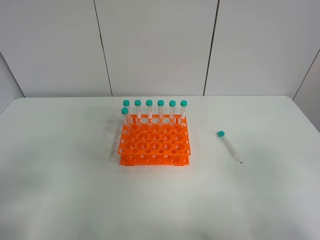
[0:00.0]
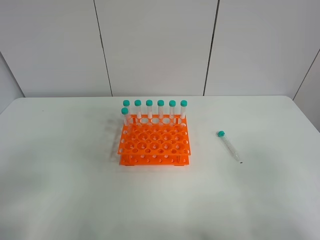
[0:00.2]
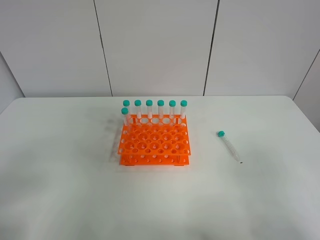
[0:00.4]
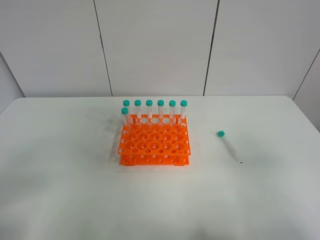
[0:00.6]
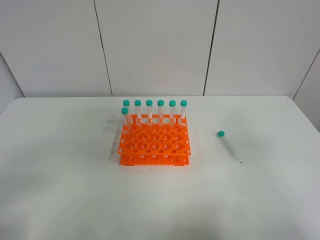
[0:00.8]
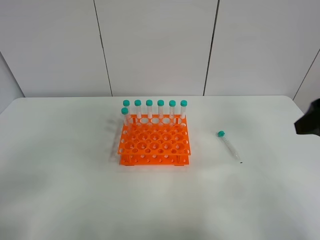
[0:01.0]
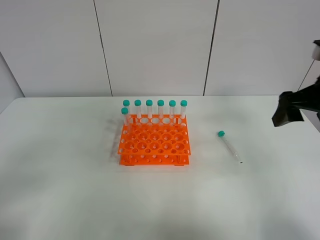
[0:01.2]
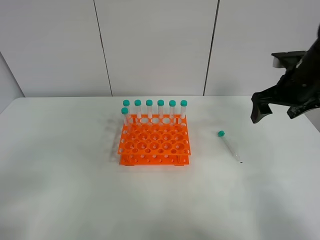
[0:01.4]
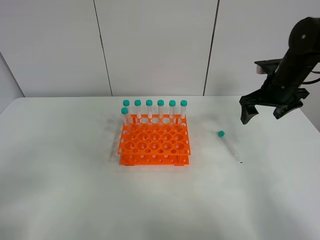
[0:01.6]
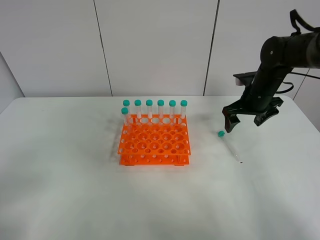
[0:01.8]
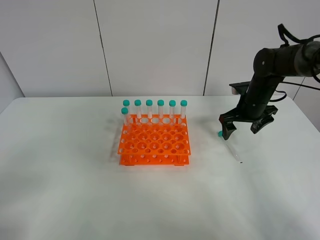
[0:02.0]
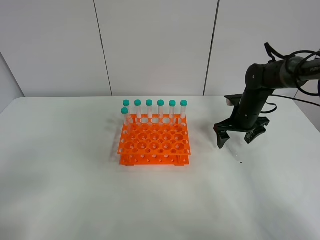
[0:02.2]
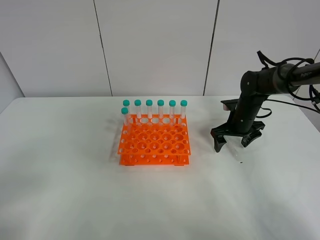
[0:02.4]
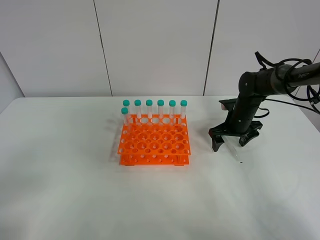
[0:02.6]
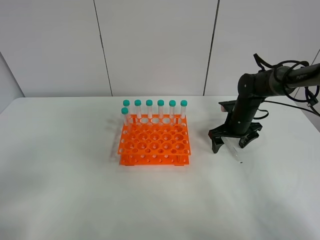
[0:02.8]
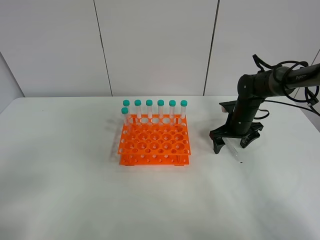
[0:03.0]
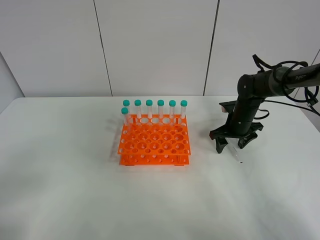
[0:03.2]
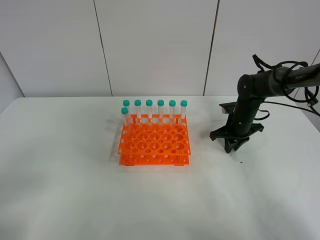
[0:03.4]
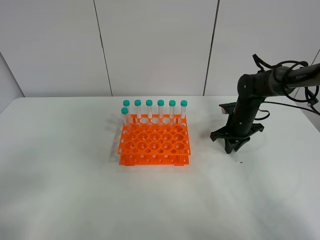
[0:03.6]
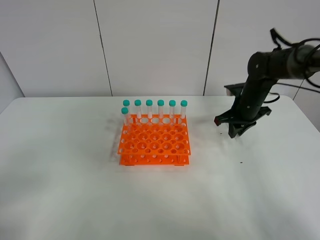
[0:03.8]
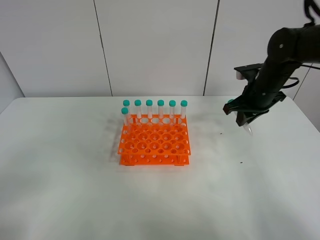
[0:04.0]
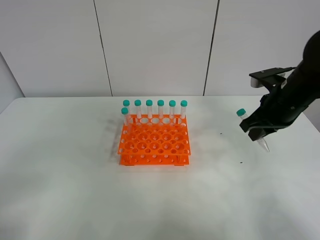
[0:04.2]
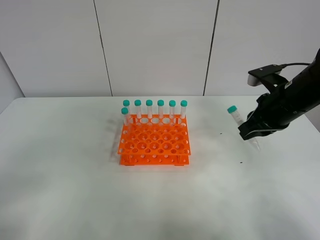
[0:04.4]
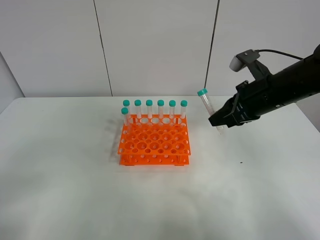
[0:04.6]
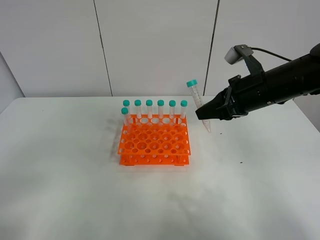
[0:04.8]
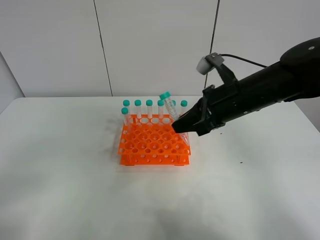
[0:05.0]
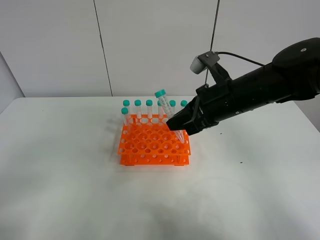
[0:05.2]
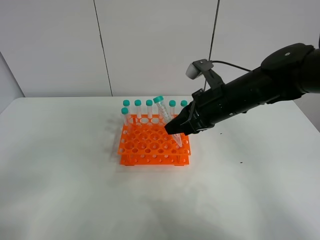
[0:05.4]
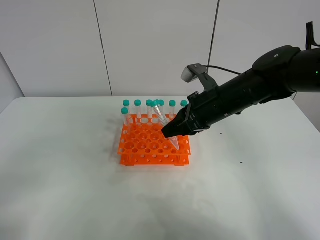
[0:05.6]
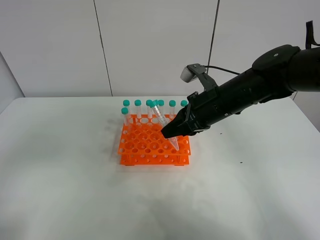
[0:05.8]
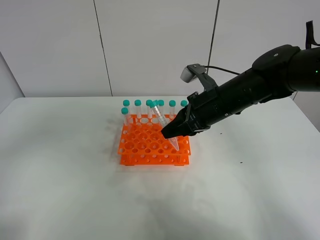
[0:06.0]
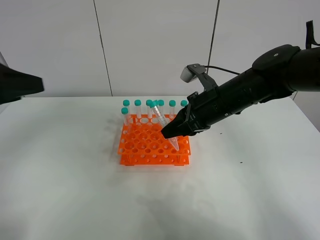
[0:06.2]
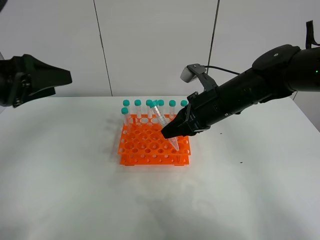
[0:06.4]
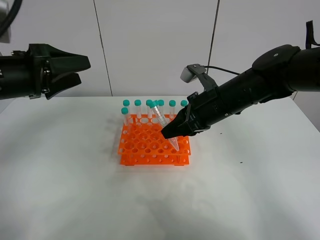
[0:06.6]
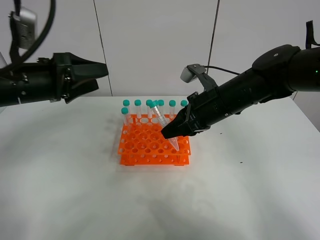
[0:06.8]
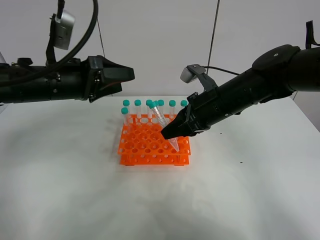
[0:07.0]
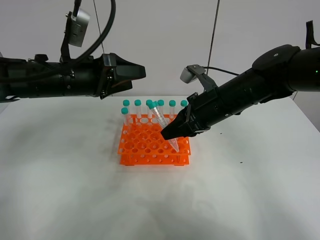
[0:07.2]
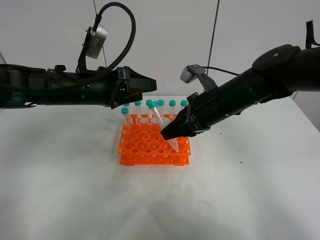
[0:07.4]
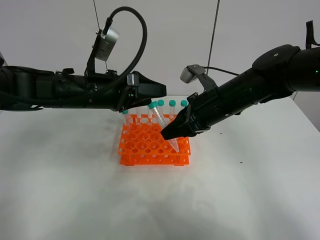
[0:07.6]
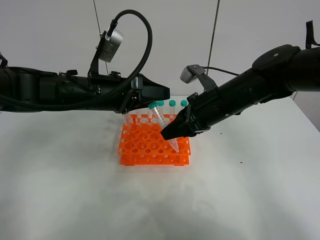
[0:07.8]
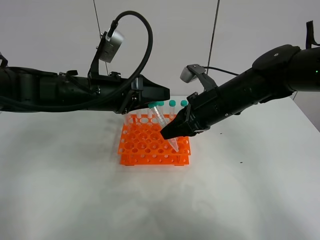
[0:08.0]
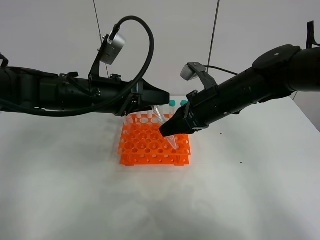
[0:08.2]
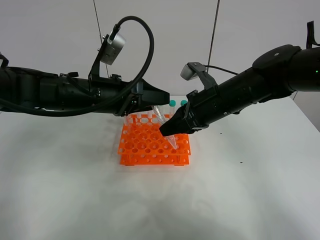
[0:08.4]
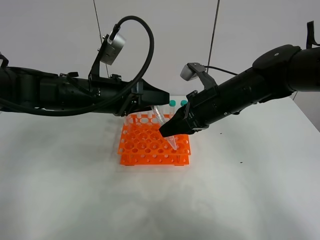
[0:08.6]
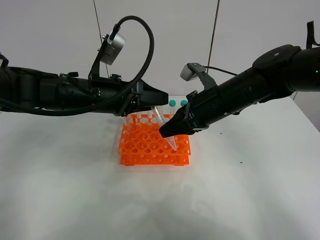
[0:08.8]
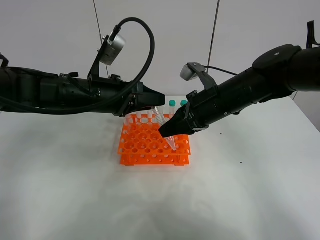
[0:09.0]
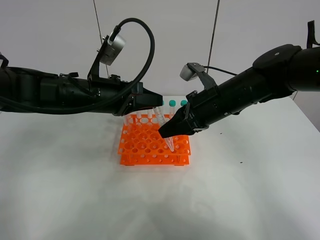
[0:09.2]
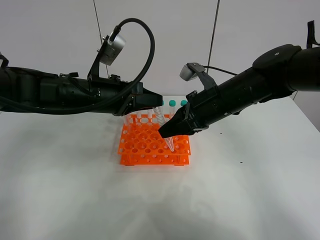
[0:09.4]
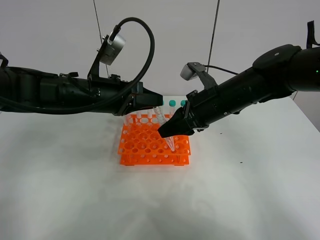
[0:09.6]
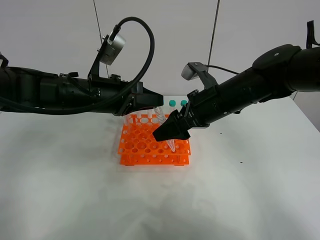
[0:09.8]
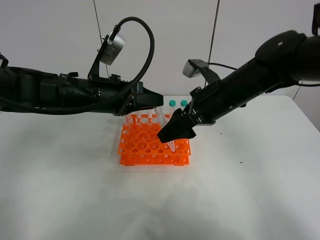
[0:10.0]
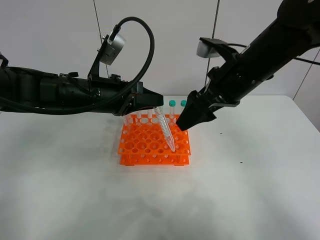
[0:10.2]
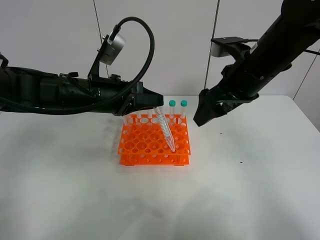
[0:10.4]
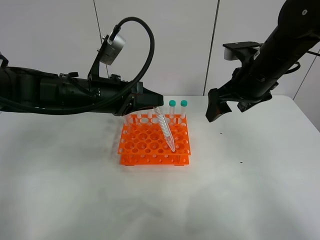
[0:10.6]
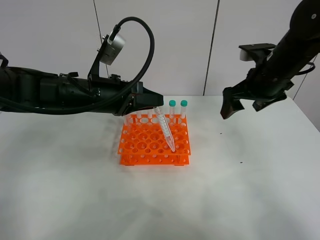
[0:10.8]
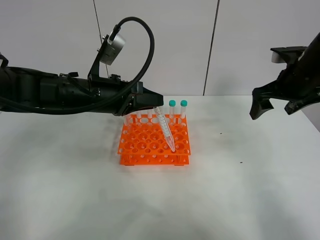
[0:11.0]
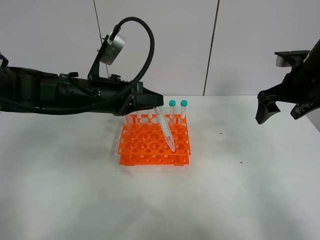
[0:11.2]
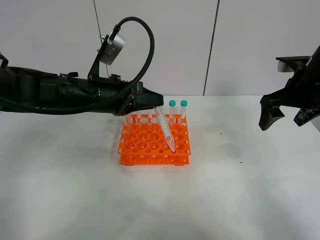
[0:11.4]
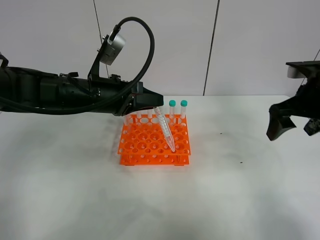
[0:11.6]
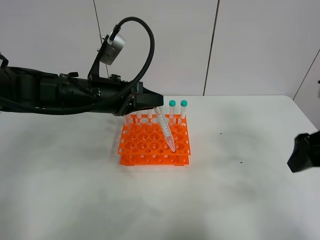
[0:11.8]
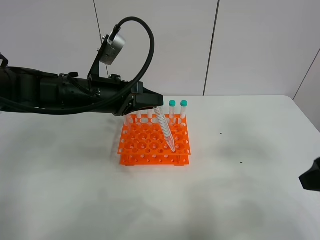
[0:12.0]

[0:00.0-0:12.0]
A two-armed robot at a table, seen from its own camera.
Task of the whole recording: Put the test tube on the table back onto the test tube rack.
Step, 0:00.0 to 0:03.6: Pick up the test tube with the right gripper.
Step, 0:03.8 to 0:09.6: Move the test tube from the right gripper to the left gripper.
0:00.0 to 0:01.6: The right gripper shifts roughly 35 cm forward.
0:01.6 to 0:03.0: The right gripper is displaced downward by about 15 cm.
0:03.0 to 0:04.4: The right gripper is displaced upward and backward by roughly 20 cm, and closes its fingers.
0:04.4 to 0:06.0: The left gripper shifts approximately 10 cm forward and upward; the right gripper heads to the left, covering some 10 cm.
0:06.0 to 0:07.6: The left gripper heads forward, to the right and downward, covering roughly 30 cm.
0:07.6 to 0:09.0: The left gripper closes its fingers.
0:09.0 to 0:10.4: The right gripper shifts approximately 5 cm upward, and opens up.
0:10.4 to 0:12.0: The right gripper is displaced backward and to the right by approximately 20 cm.

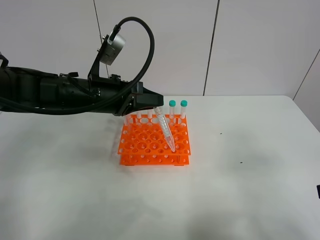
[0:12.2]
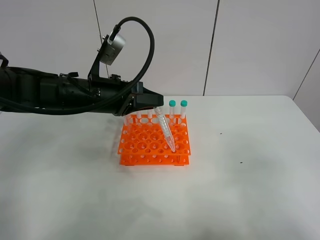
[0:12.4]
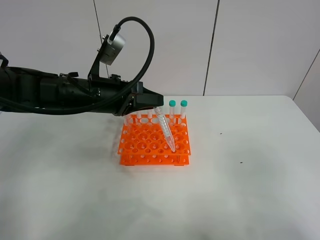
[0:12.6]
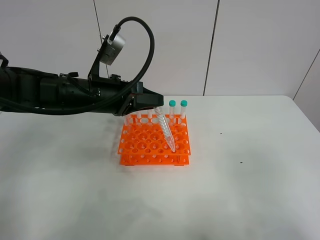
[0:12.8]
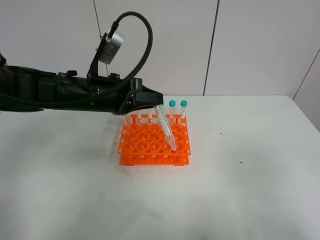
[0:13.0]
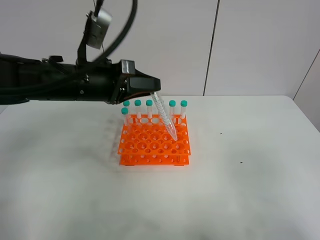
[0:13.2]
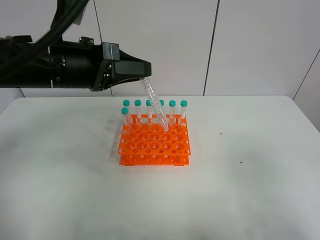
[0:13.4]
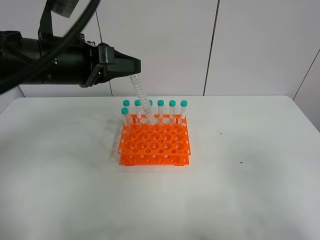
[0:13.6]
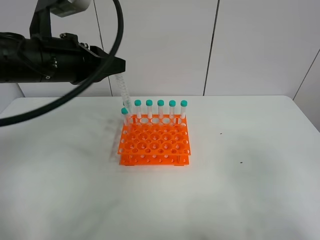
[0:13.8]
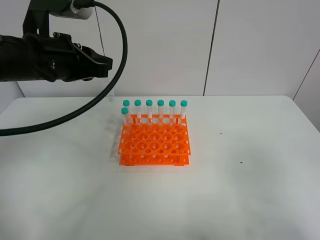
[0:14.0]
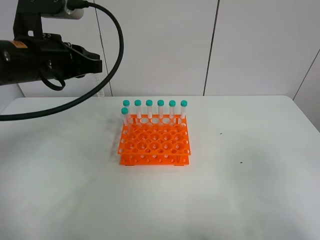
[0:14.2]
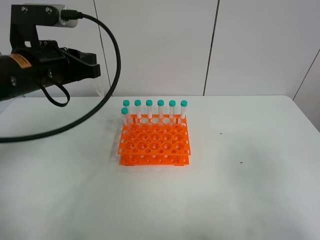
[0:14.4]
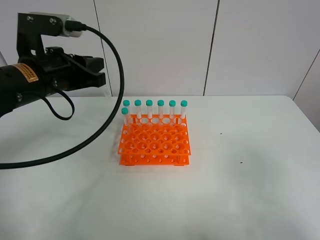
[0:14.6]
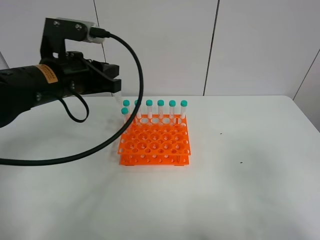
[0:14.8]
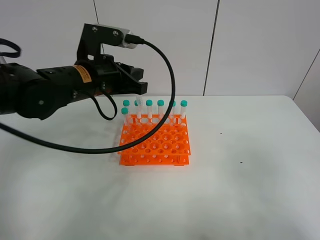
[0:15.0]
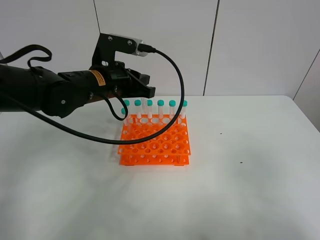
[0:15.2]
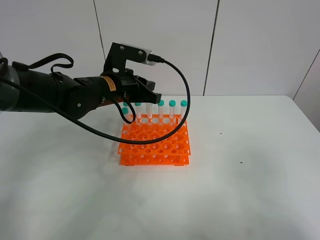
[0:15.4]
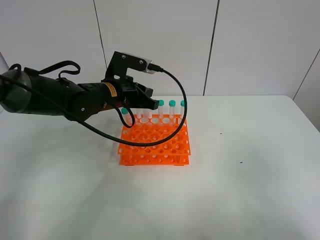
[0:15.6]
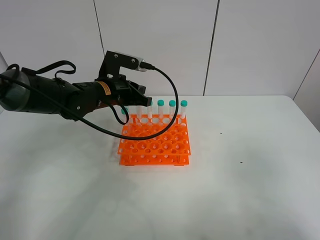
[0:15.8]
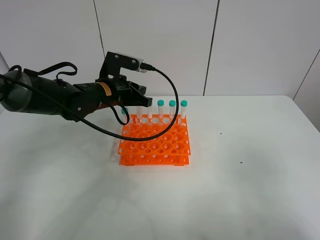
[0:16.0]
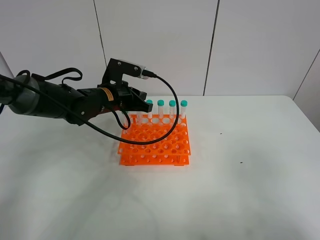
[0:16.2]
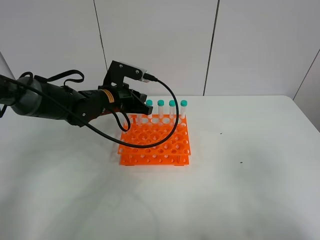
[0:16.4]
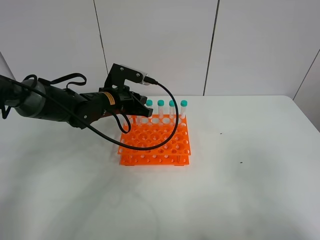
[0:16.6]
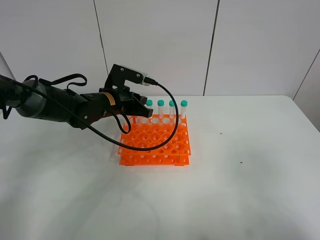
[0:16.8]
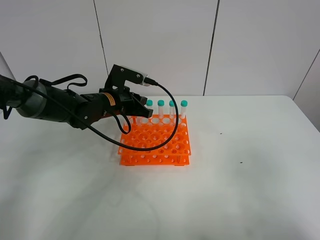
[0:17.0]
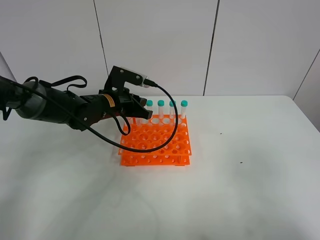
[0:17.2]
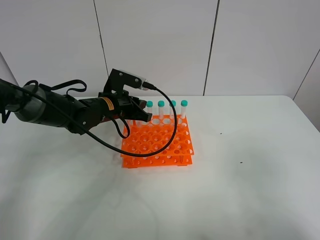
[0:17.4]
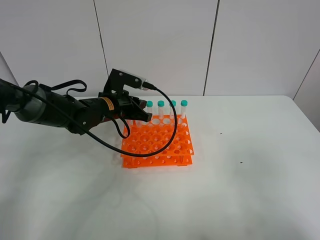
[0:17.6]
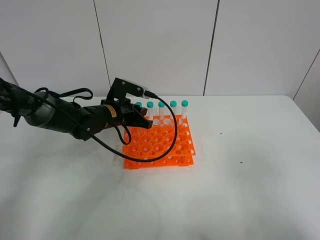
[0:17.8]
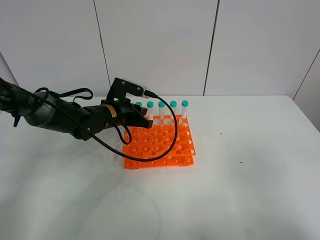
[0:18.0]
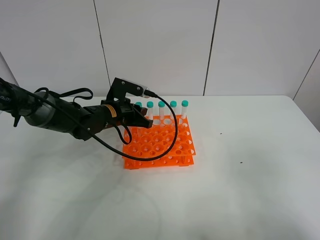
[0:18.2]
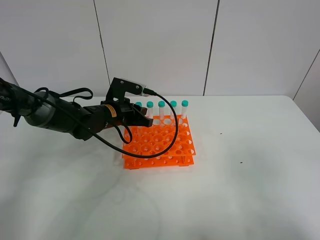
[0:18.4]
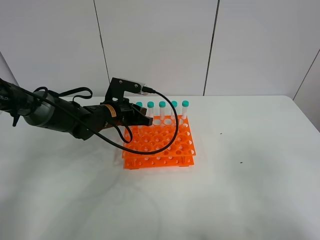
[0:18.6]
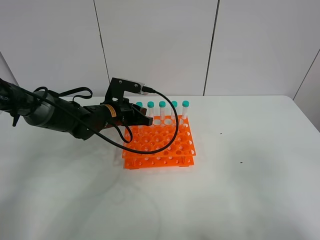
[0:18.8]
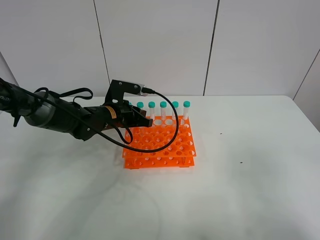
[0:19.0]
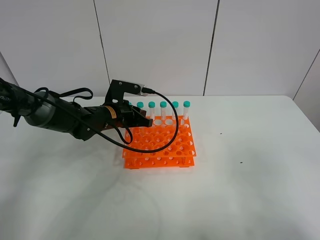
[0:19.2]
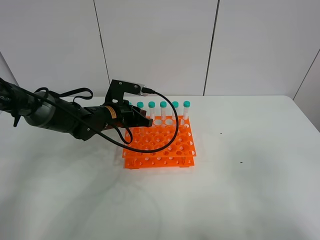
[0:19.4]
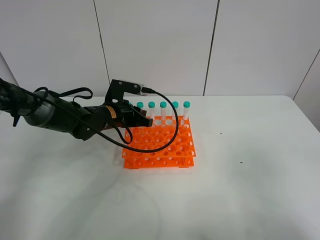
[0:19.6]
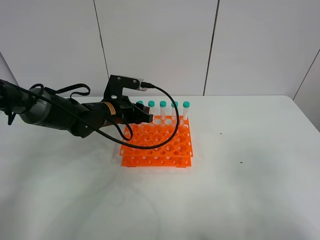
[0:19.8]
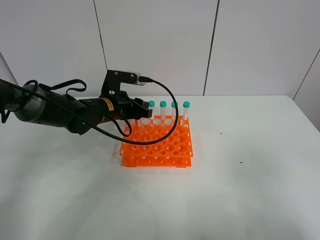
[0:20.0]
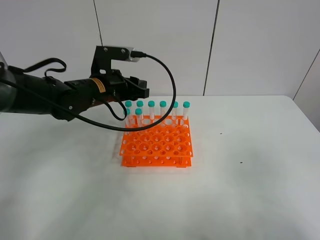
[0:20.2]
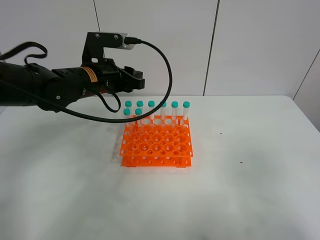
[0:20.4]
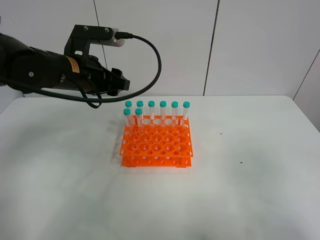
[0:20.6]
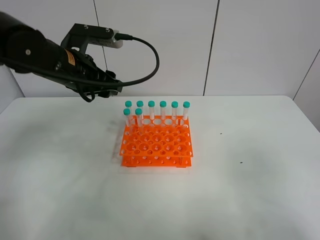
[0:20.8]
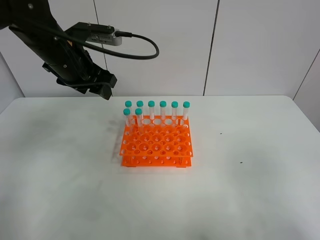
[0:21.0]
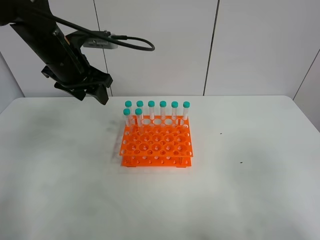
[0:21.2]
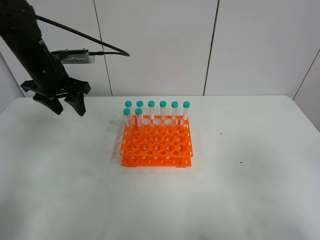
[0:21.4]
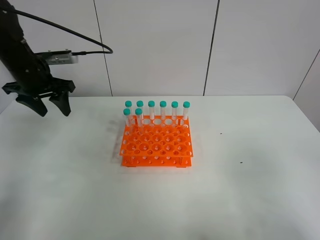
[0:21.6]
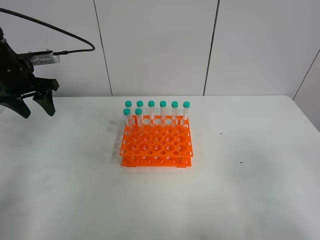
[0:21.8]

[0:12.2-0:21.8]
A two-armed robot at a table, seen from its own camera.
Task of the whole recording: Put the test tube on the table back onto the test tube rack.
Step, 0:12.2 to 0:19.8: Place the test tube on the test tube rack with the left gripper.
0:12.2 to 0:13.8: The left gripper heads upward, covering roughly 10 cm. The right gripper moves backward, approximately 5 cm.
0:13.8 to 0:15.4: The left gripper moves downward, to the right and forward, some 15 cm.
0:15.4 to 0:17.0: The left gripper is displaced downward by roughly 5 cm.
0:17.0 to 0:18.6: The grippers stay close to where they were, moving slightly.
0:18.6 to 0:20.2: The left gripper is displaced upward by some 10 cm, and opens.
0:20.2 to 0:21.8: The left gripper travels to the left by approximately 20 cm.
